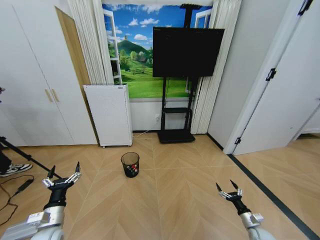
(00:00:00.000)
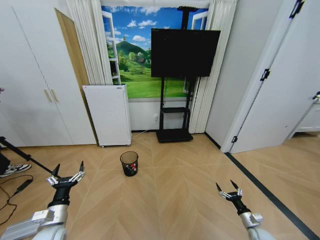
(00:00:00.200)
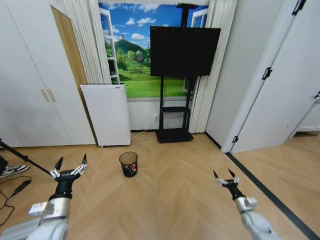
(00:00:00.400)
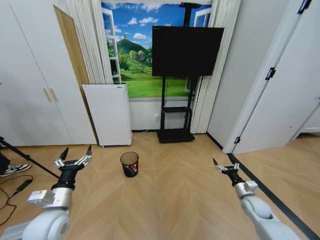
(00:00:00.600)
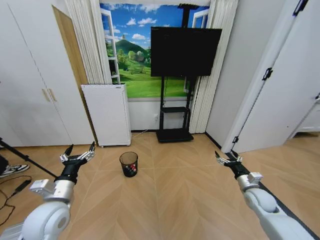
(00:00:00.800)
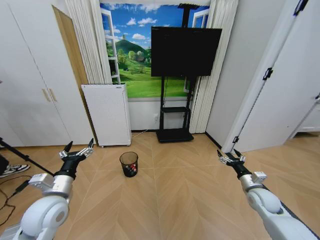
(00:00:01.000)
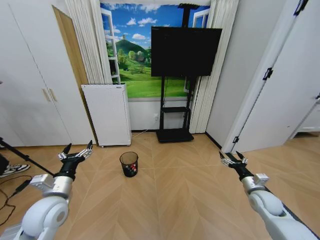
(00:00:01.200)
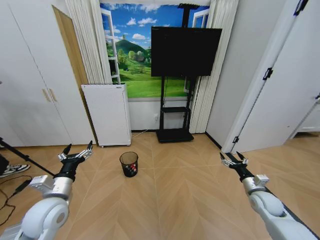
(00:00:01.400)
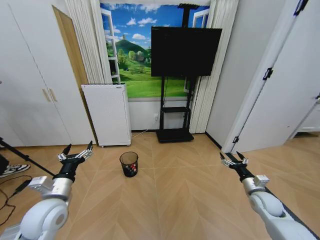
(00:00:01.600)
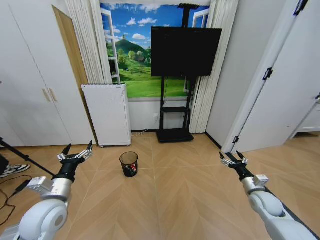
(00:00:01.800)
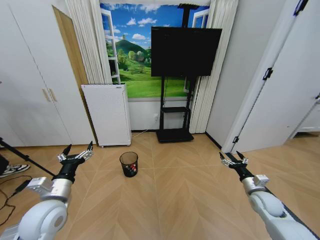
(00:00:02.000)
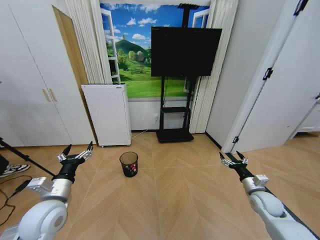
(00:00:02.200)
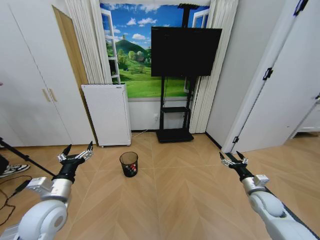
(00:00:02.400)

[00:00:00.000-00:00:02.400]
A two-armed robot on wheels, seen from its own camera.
Task of the whole recording: Pick up the trash bin and place the garbage on the floor into it.
00:00:00.000 to 00:00:01.200: The left gripper heads upward, covering roughly 15 cm, while the right gripper moves upward, some 20 cm.
00:00:01.200 to 00:00:02.400: The two grippers keep their place.
